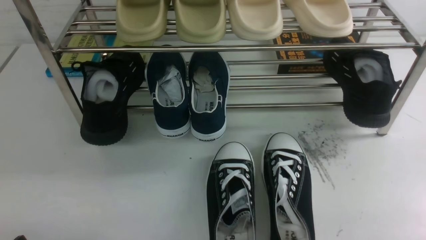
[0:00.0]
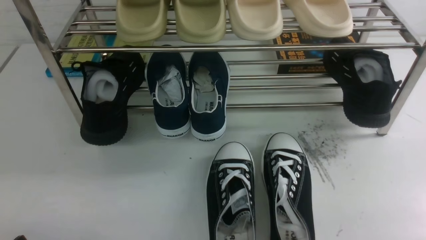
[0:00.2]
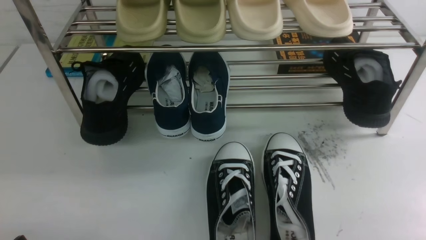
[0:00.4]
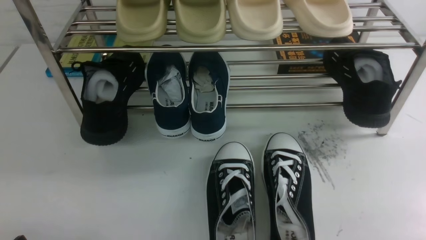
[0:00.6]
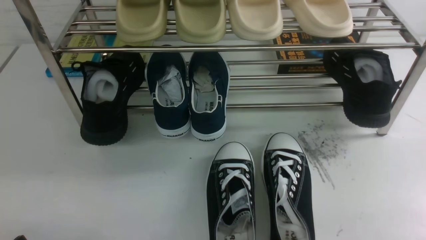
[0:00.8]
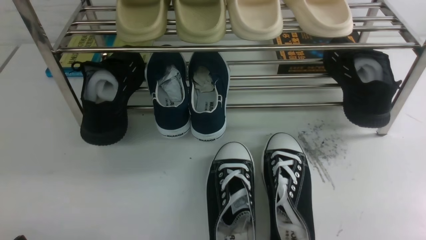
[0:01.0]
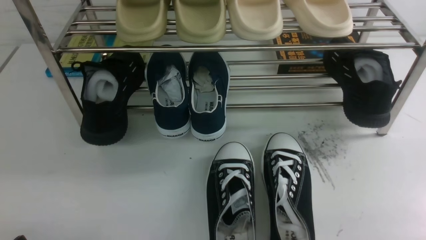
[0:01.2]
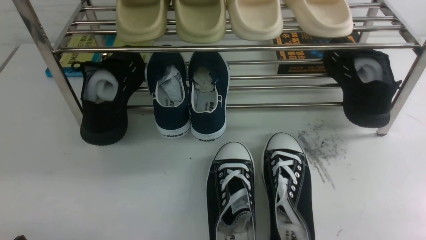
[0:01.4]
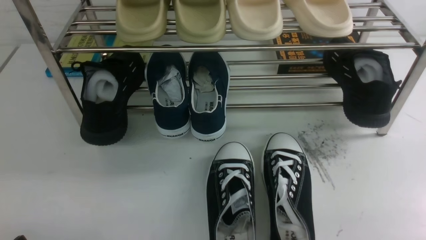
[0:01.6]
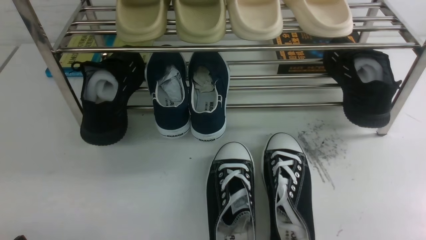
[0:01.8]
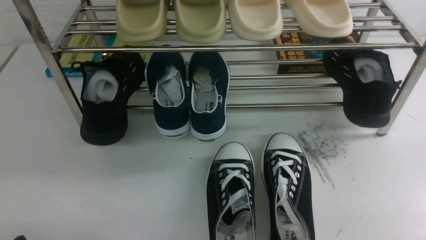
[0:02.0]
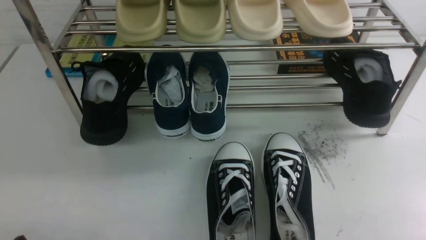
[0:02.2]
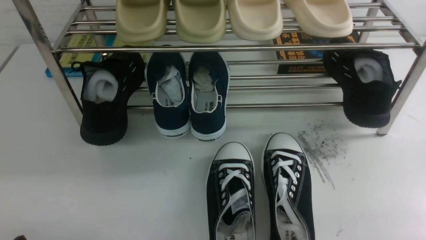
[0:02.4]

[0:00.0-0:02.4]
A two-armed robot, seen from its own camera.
0:00.0 to 0:02.4: Both grippers stay put.

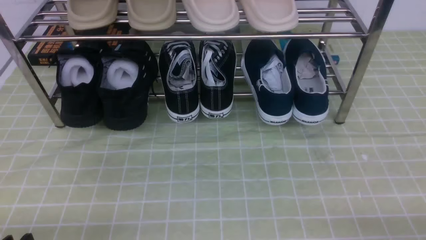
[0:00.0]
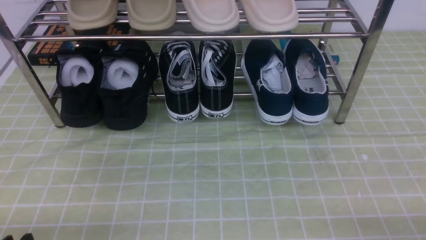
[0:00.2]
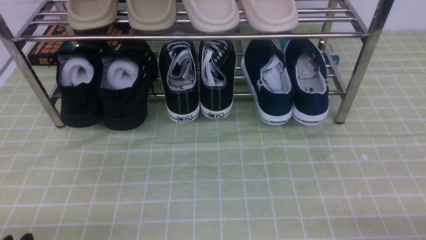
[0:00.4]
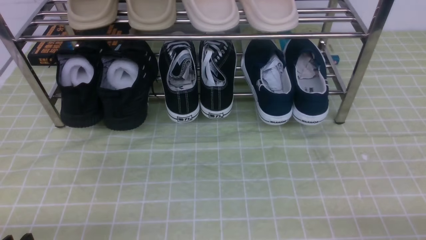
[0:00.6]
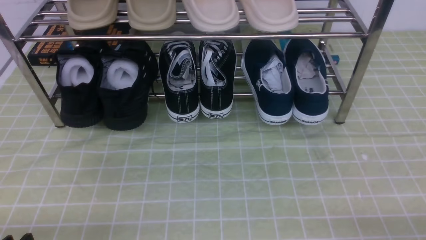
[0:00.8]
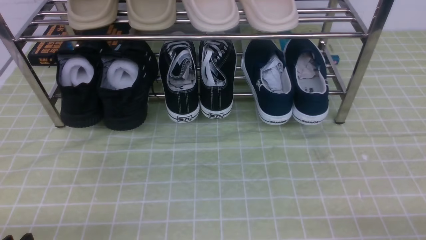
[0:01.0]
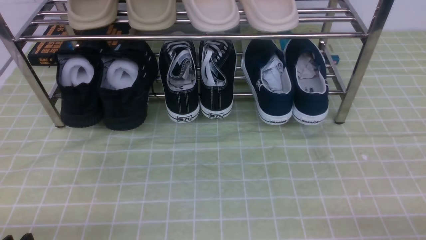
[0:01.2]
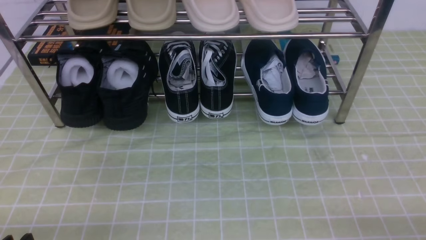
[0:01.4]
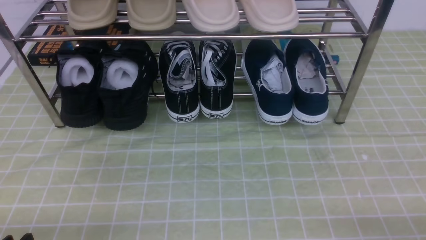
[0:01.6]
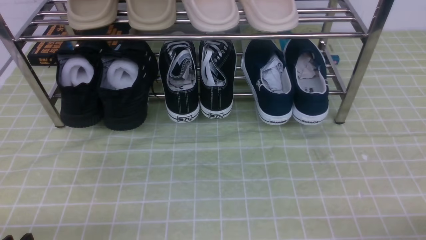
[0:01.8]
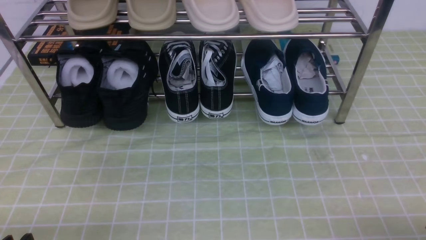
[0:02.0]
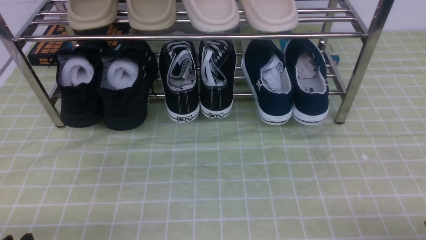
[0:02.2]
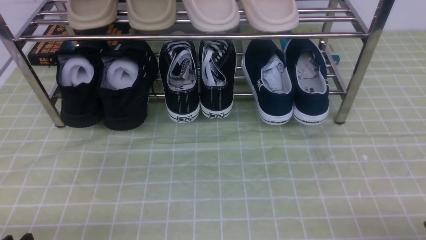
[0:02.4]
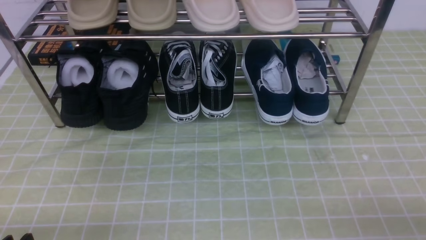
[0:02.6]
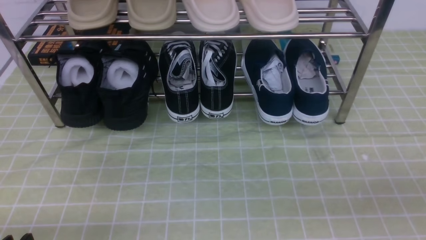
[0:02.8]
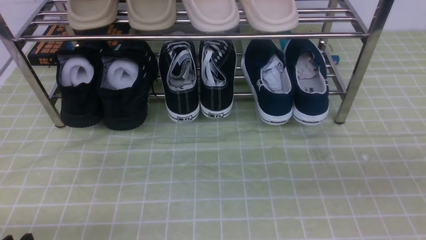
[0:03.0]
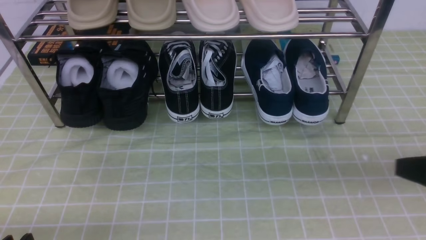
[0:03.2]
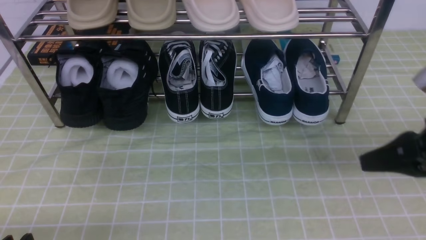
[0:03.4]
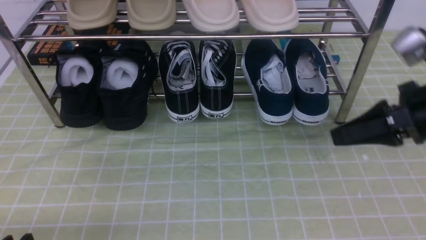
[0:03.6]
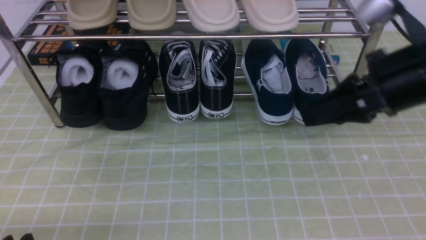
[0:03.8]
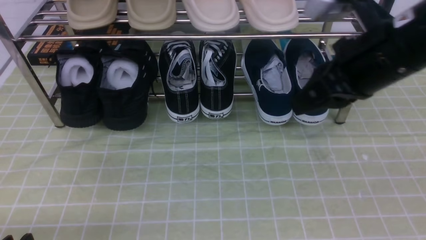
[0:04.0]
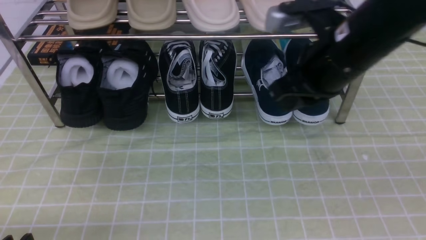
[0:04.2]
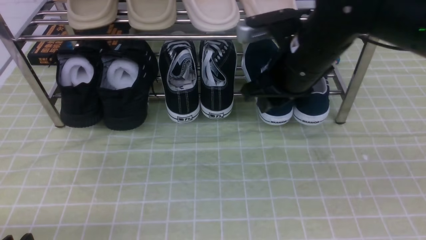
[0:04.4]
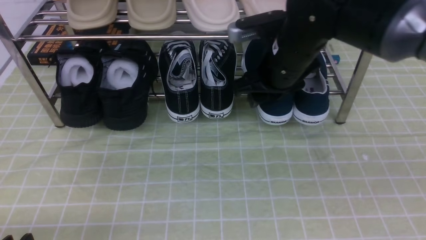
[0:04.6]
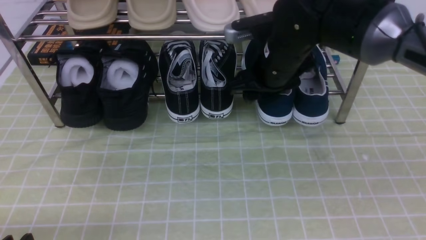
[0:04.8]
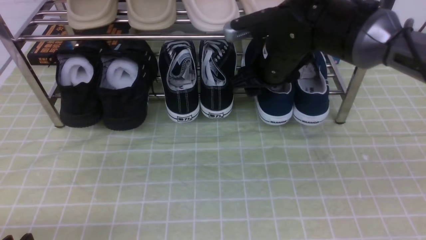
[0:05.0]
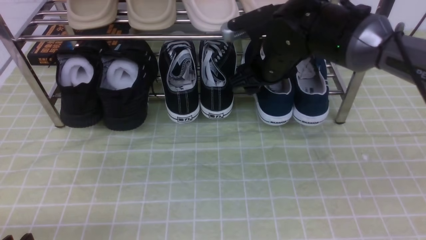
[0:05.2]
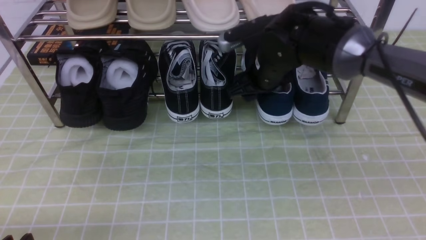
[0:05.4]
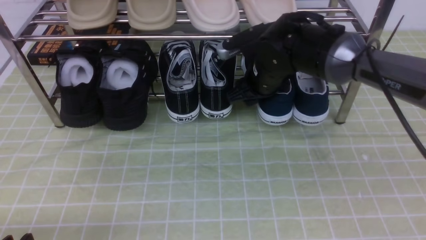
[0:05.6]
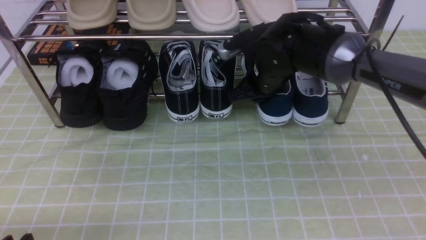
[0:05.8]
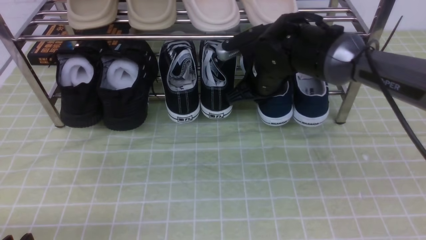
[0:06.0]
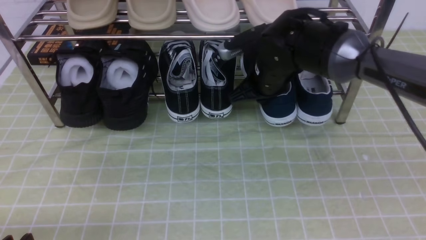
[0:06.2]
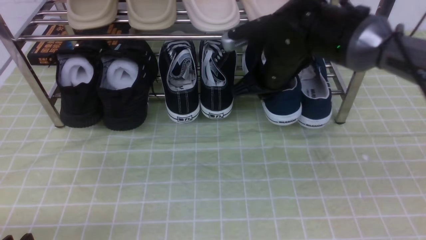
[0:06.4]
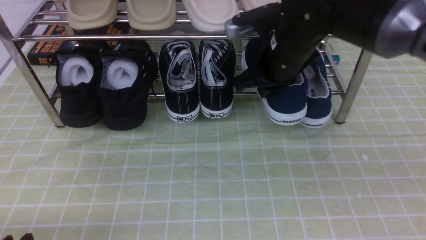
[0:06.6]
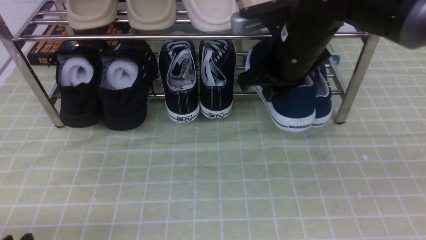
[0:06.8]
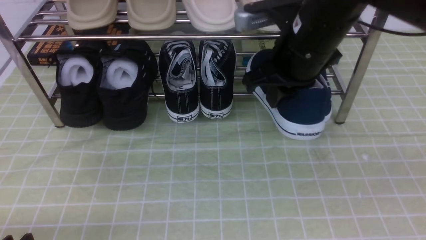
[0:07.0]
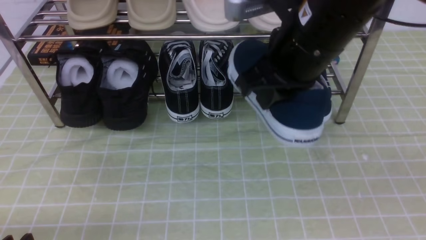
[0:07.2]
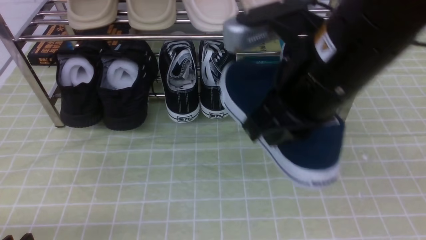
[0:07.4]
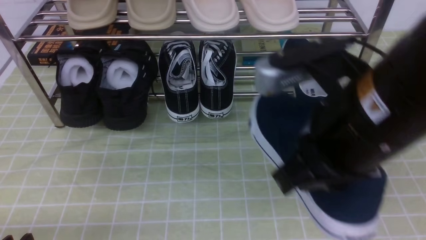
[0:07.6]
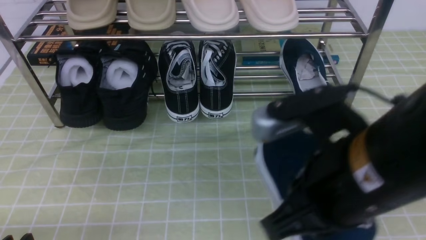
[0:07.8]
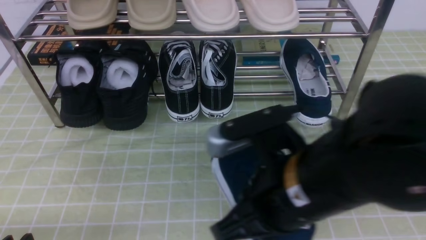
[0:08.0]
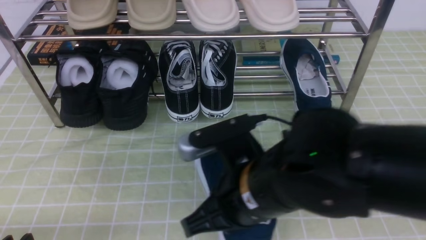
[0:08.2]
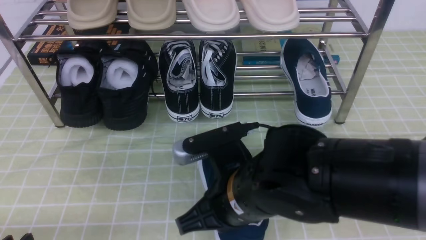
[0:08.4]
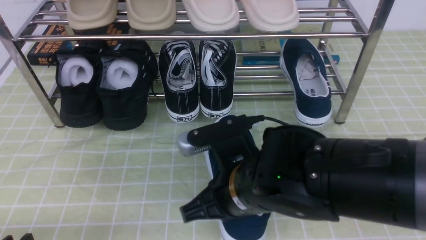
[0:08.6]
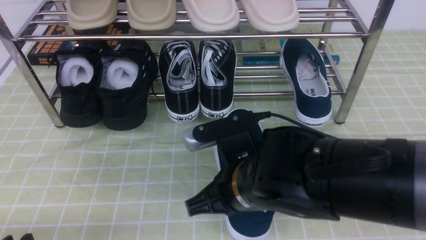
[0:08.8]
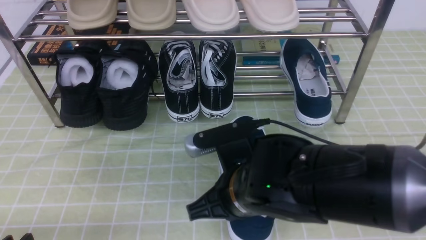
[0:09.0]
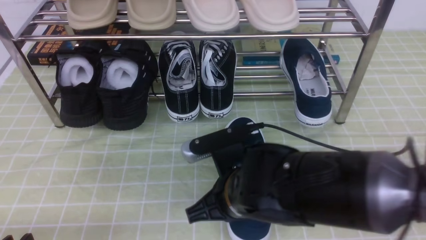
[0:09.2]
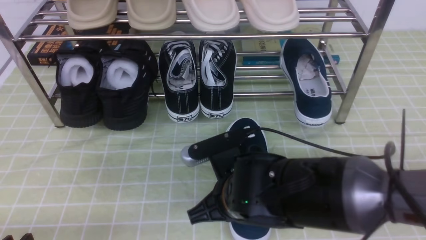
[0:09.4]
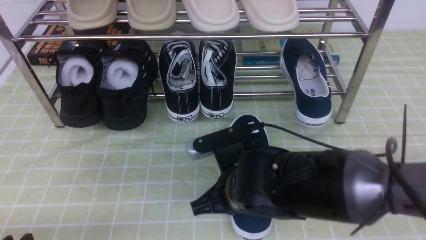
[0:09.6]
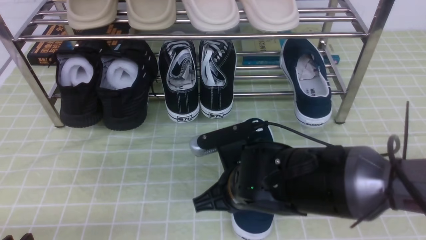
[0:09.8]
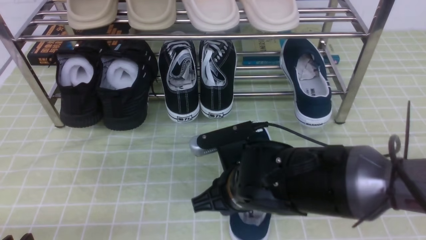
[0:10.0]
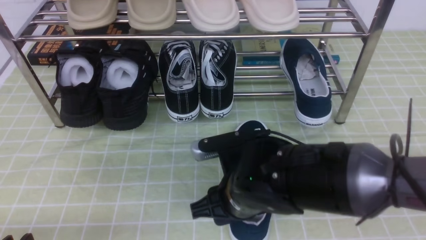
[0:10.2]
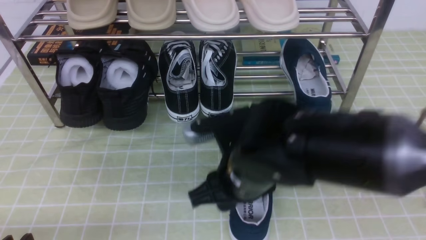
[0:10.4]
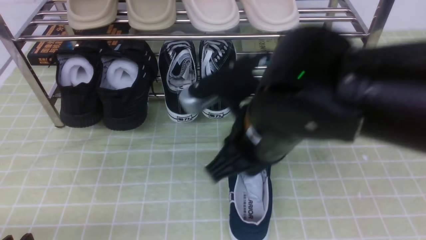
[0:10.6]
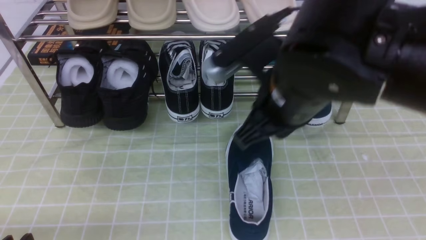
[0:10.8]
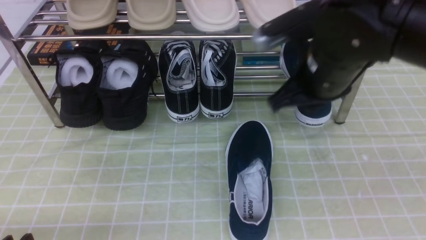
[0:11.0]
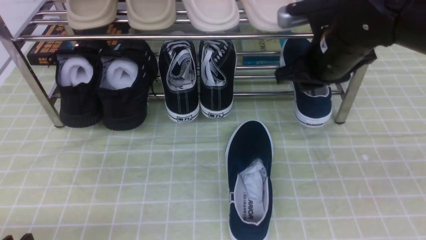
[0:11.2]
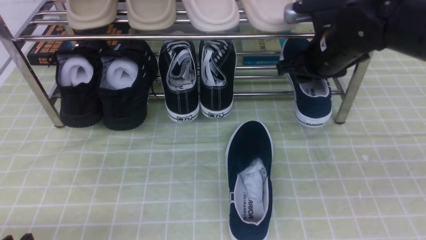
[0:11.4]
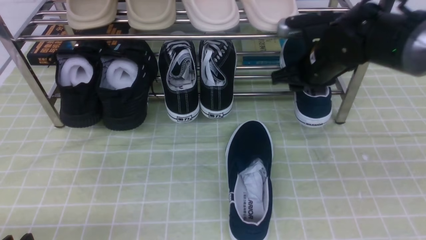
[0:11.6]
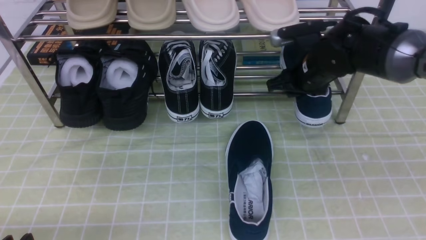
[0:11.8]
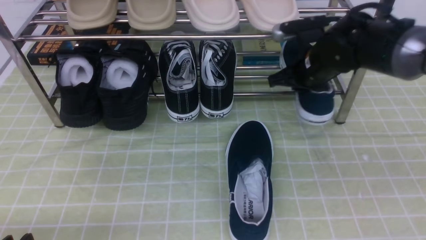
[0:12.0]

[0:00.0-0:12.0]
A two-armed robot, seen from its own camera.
Step, 0:00.0 to 0:05.8: use the right arm to clamp a shoe on the right side of the shoe rack.
Step, 0:06.0 to 0:10.4: use the right arm to take out the clamped shoe from the shoe rack and put it down.
Step, 0:10.8 to 0:12.0: use the right arm to clamp a shoe on the right side of the shoe rack.
0:01.6 to 0:03.0: The right gripper is displaced upward and forward by approximately 15 cm, and closes.
0:03.0 to 0:04.4: The right gripper heads forward and to the left, covering approximately 30 cm, and opens.
0:04.4 to 0:06.0: The right gripper travels downward and forward by roughly 10 cm, and closes.
0:06.0 to 0:07.6: The right gripper is displaced backward and upward by some 25 cm.
0:07.6 to 0:09.0: The right gripper goes about 15 cm downward and to the left.
0:09.0 to 0:10.4: The right gripper opens.
0:10.4 to 0:12.0: The right gripper shifts some 25 cm forward and to the right, and closes up.

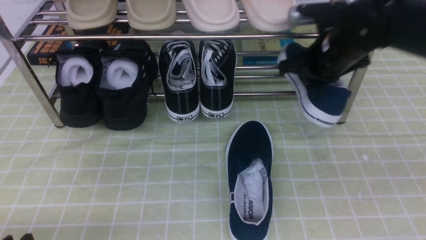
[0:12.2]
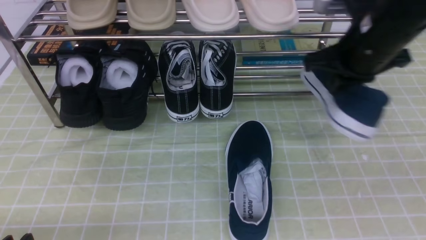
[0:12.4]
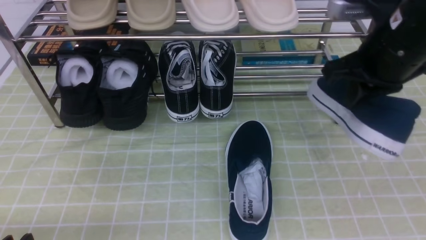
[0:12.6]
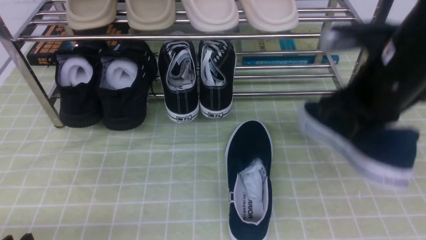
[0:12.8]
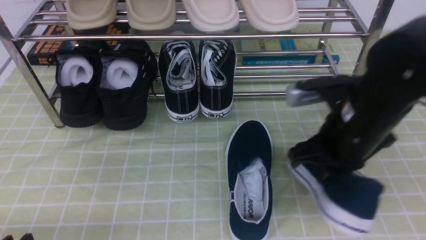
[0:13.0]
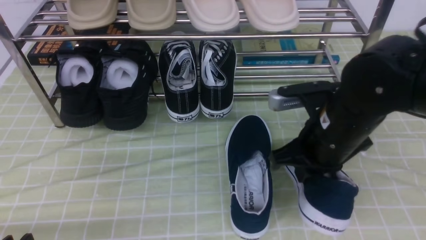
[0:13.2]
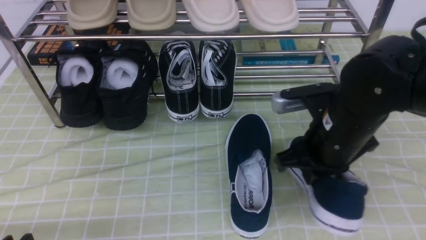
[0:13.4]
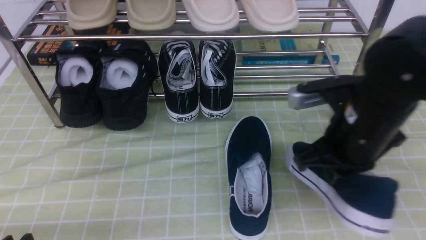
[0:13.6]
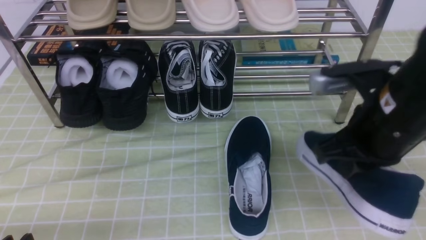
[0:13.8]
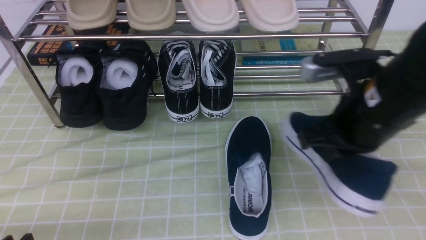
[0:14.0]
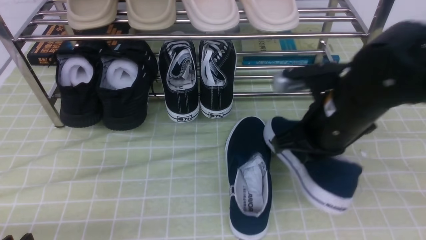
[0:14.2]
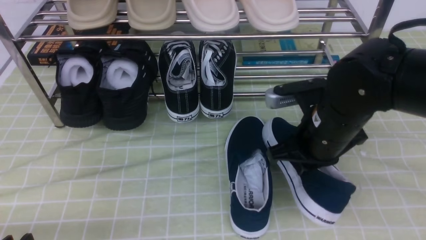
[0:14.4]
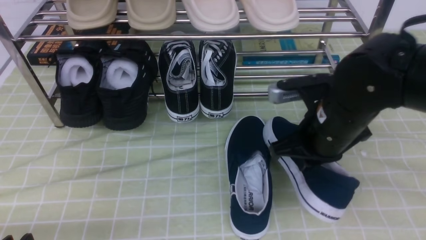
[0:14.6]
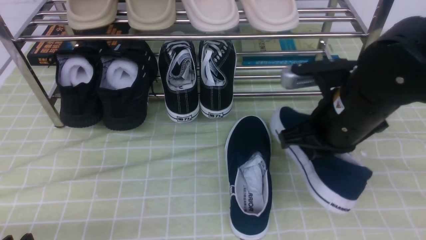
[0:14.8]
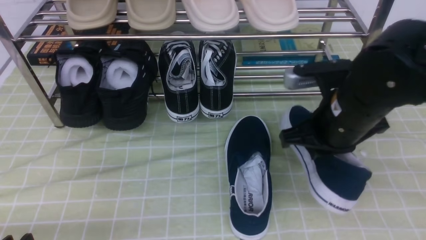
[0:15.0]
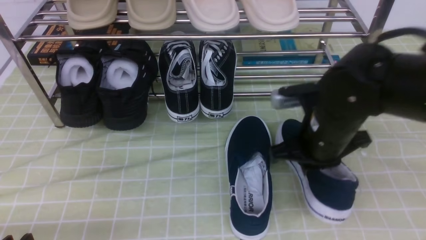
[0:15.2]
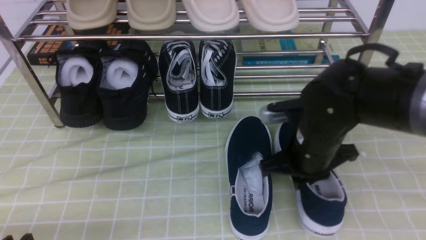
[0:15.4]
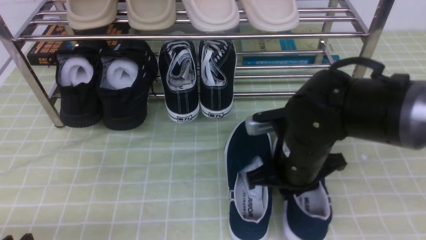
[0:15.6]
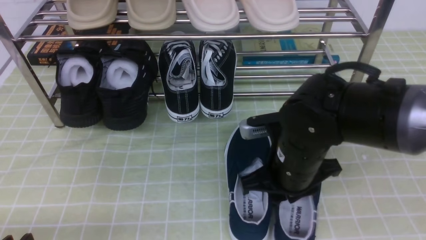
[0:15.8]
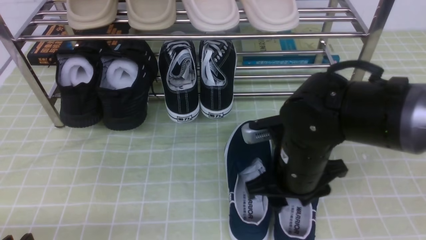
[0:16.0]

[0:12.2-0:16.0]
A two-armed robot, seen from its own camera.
0:12.2 to 0:13.4: The right gripper heads backward, covering some 10 cm.
0:13.4 to 0:14.8: The grippers move only a little.
0:14.8 to 0:16.0: The right gripper ends up roughly 5 cm from where it was, and opens.
